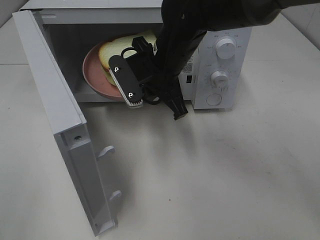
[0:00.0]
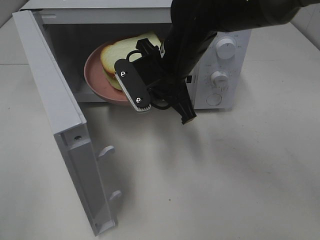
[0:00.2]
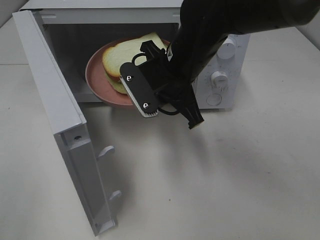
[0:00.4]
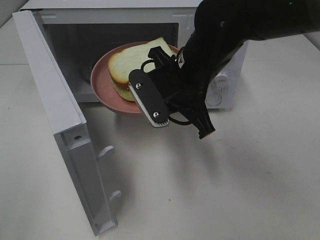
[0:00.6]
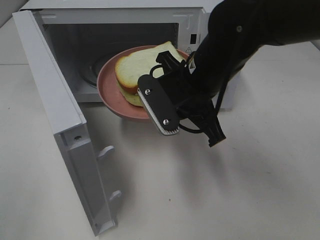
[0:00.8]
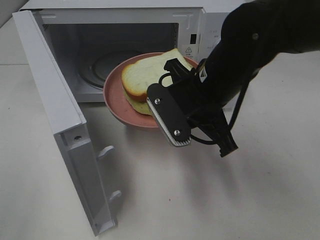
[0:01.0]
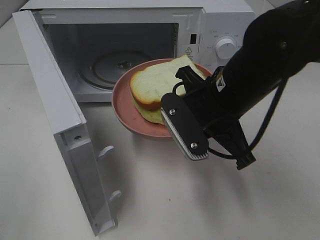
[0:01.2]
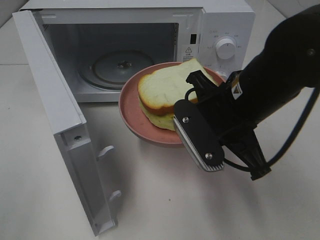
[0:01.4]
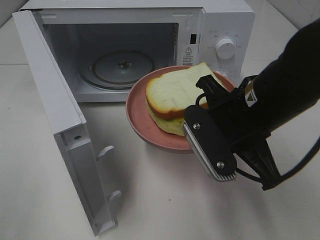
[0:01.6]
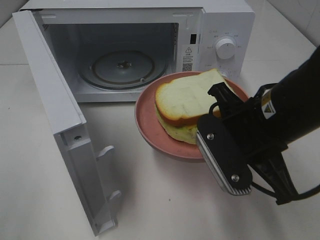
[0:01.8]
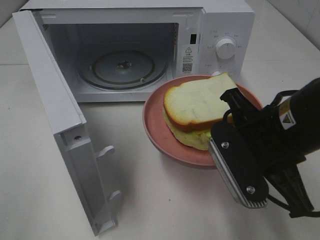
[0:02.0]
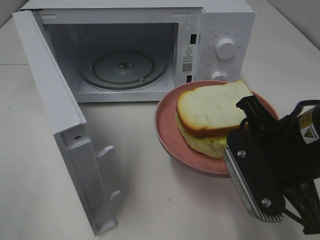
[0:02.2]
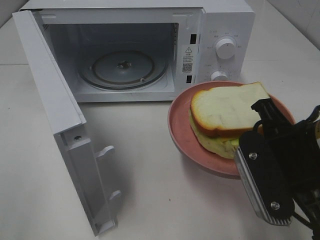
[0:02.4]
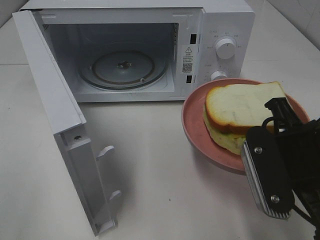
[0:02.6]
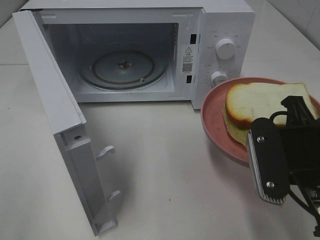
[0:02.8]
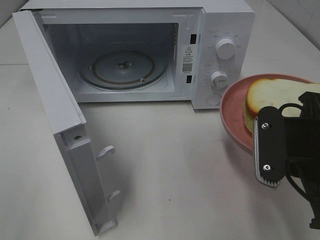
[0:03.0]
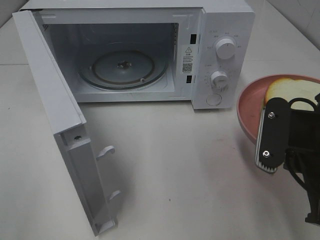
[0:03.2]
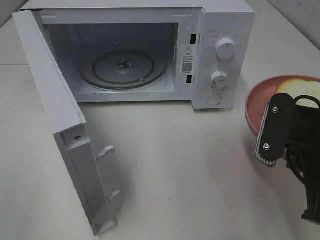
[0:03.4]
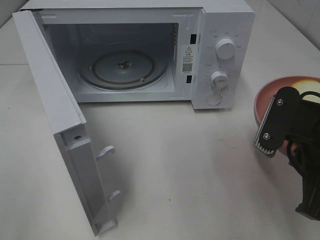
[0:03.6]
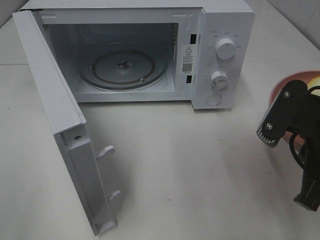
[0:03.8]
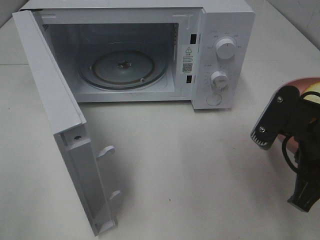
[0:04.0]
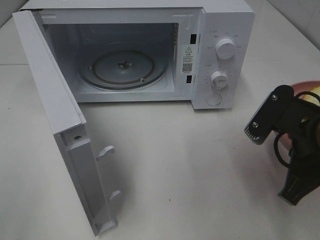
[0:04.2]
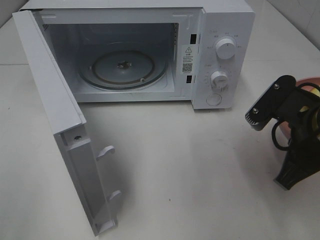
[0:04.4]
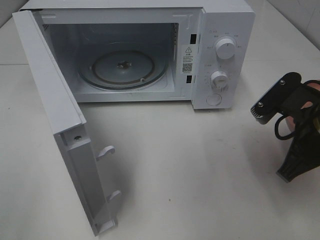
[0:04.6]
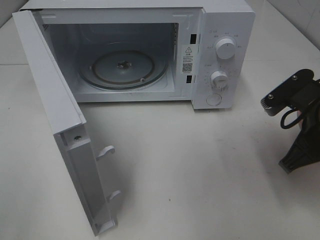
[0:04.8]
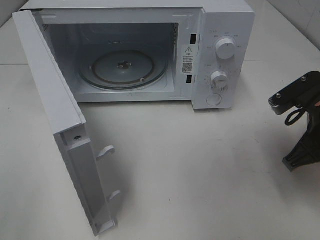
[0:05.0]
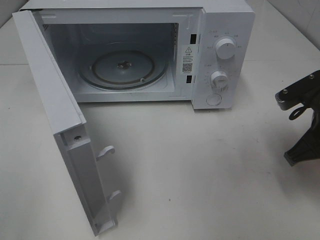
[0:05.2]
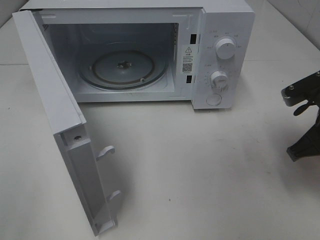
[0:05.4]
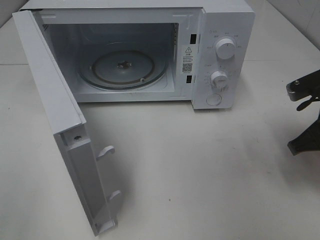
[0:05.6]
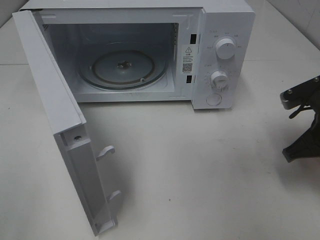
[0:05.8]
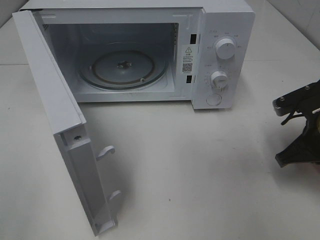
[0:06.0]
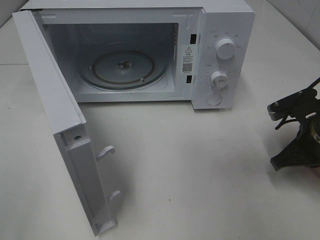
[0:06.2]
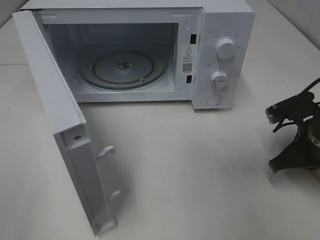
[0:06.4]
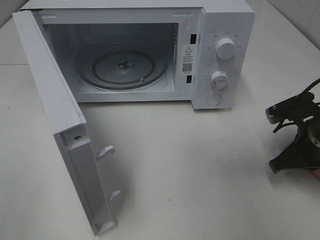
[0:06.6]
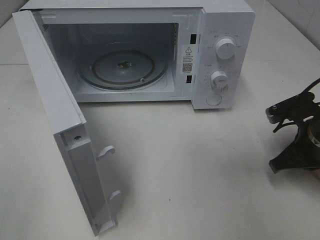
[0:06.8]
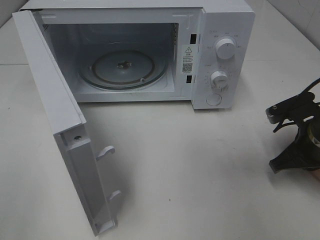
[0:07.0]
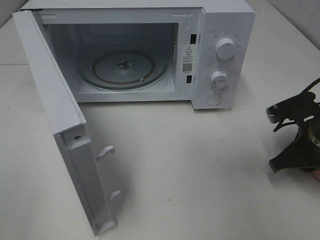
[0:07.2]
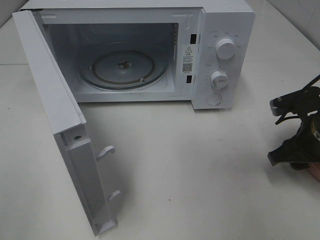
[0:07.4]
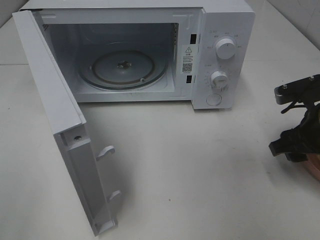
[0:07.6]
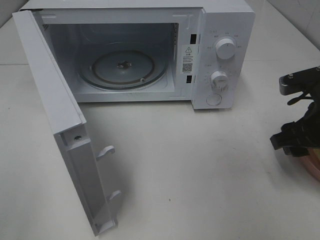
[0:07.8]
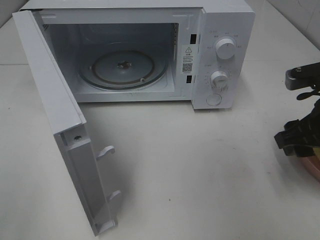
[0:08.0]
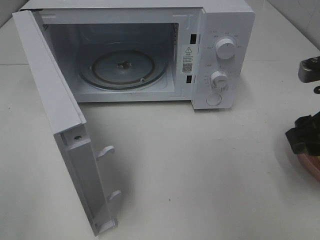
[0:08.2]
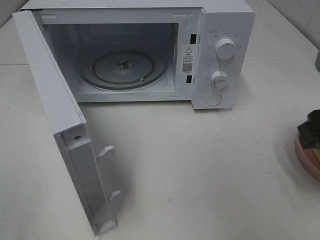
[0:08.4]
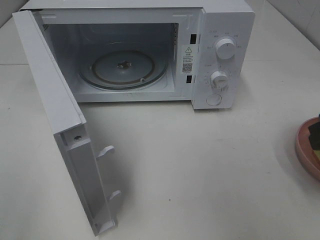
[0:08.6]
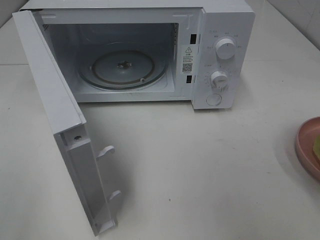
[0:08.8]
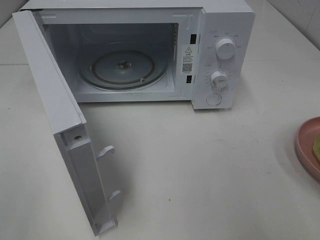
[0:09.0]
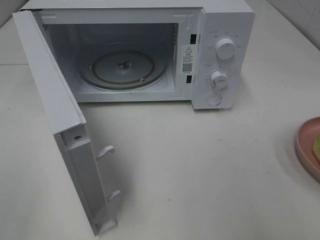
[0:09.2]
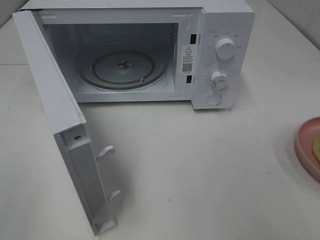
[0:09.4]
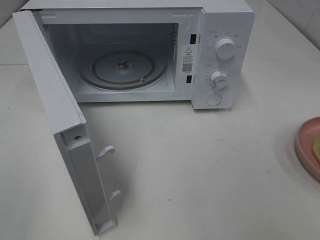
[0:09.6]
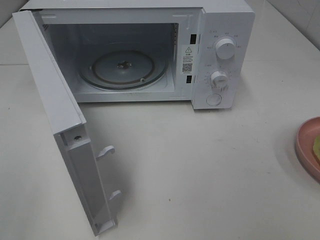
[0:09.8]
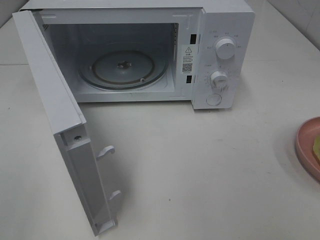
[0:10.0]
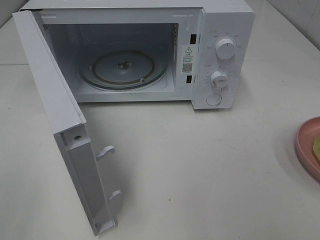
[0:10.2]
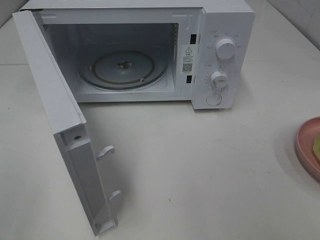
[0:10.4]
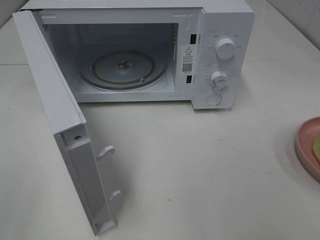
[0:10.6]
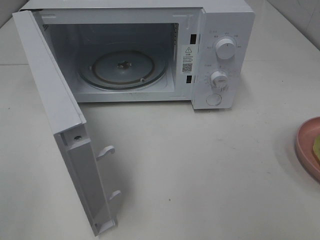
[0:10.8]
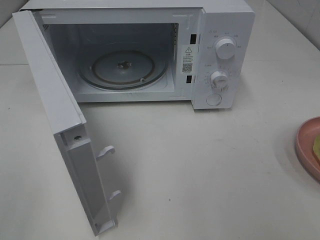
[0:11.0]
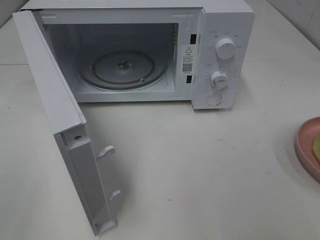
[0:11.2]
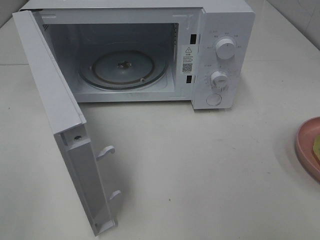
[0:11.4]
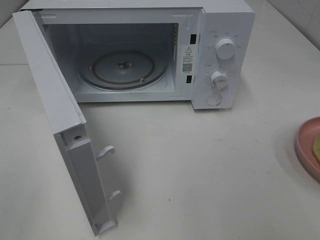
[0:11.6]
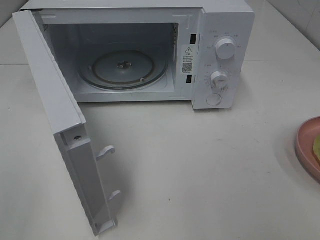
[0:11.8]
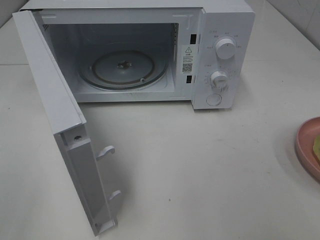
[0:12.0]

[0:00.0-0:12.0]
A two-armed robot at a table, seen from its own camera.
Task of the whole recording: Heat Sandwich.
Step, 0:00.0 to 0:07.4: Right hand: place the plate on the table.
0:00.0 to 0:01.6: The right gripper moves backward and to the right, approximately 15 cm.
0:01.6 to 0:03.0: The right gripper heads to the right and backward, covering roughly 10 cm.
0:04.4 to 0:06.0: The right gripper is displaced to the right, downward and forward by some 10 cm.
0:06.0 to 0:07.6: The right gripper opens up.
0:07.6 to 0:09.0: The right gripper is displaced upward and backward by about 15 cm.
0:10.4 to 0:12.0: Both grippers stay about where they are.

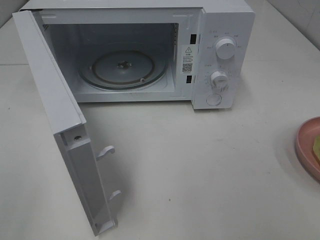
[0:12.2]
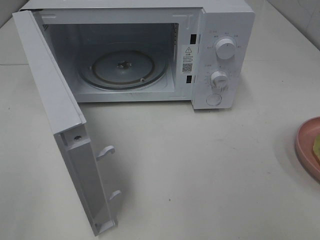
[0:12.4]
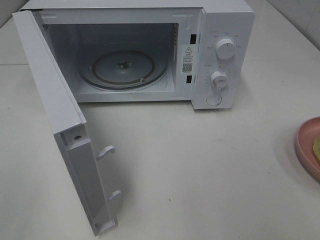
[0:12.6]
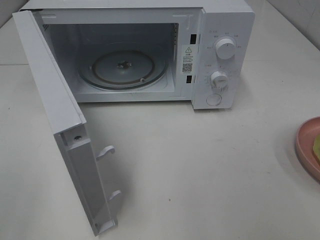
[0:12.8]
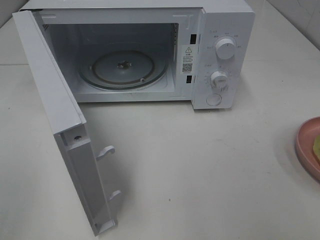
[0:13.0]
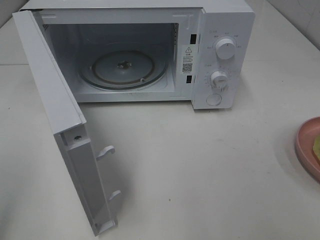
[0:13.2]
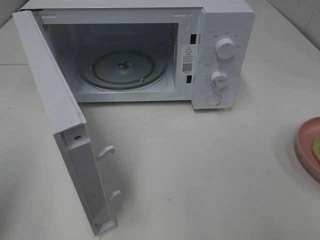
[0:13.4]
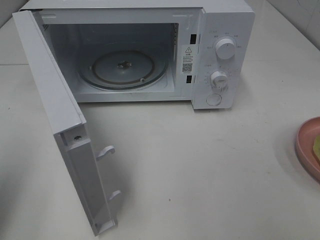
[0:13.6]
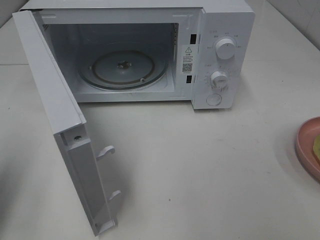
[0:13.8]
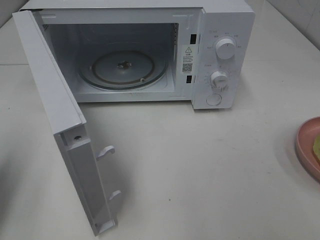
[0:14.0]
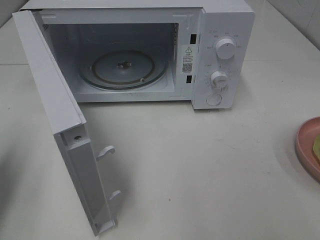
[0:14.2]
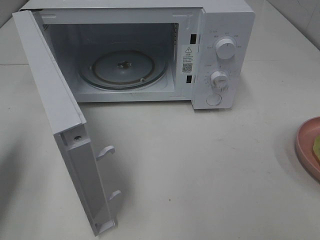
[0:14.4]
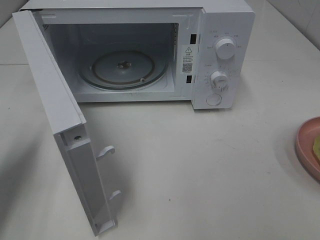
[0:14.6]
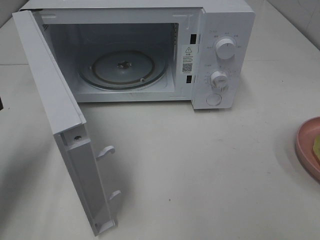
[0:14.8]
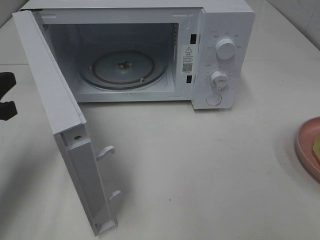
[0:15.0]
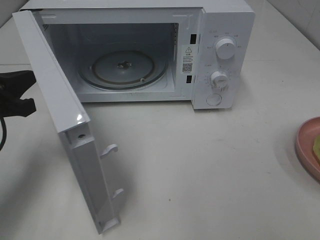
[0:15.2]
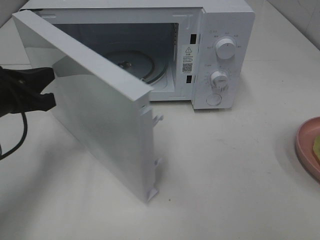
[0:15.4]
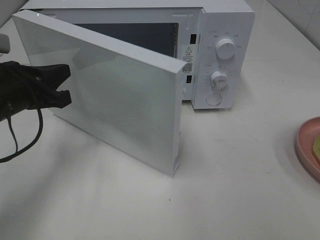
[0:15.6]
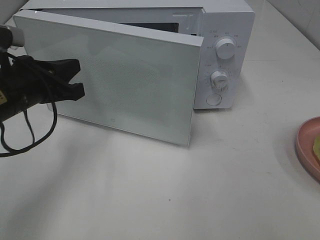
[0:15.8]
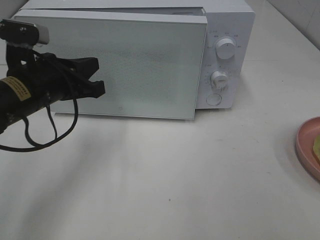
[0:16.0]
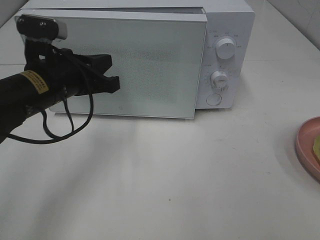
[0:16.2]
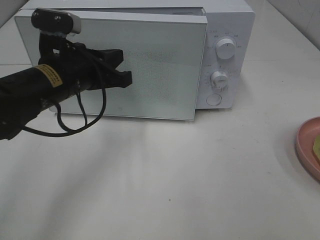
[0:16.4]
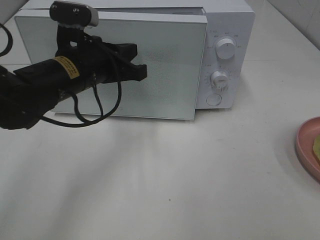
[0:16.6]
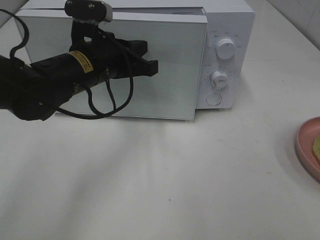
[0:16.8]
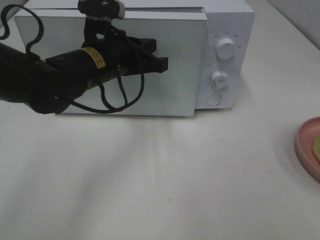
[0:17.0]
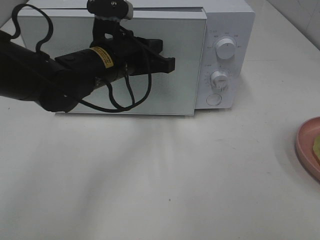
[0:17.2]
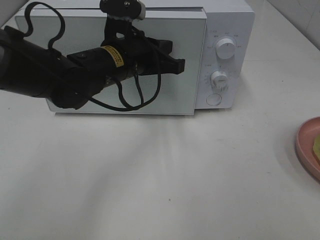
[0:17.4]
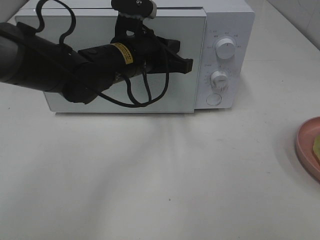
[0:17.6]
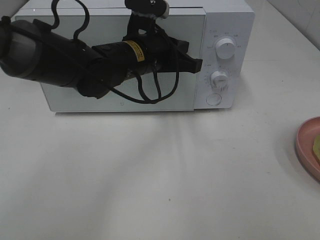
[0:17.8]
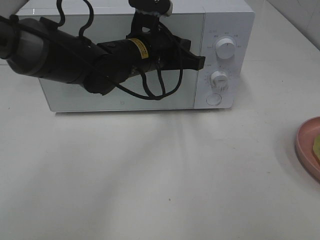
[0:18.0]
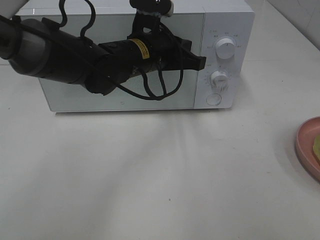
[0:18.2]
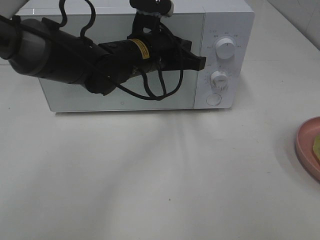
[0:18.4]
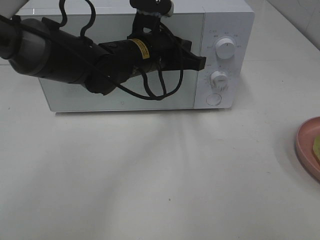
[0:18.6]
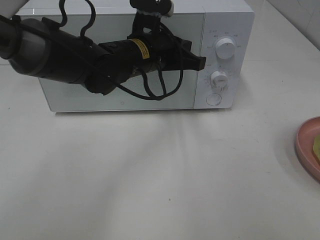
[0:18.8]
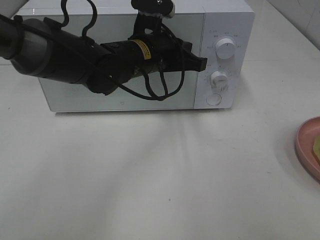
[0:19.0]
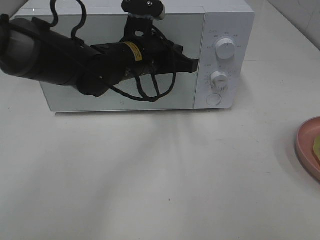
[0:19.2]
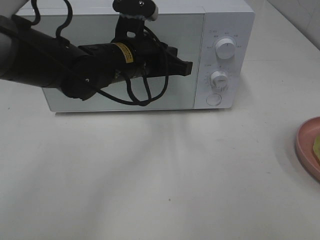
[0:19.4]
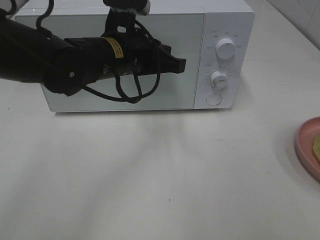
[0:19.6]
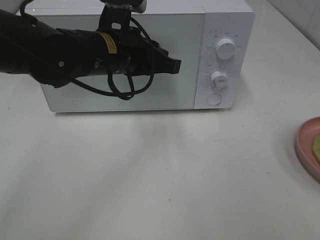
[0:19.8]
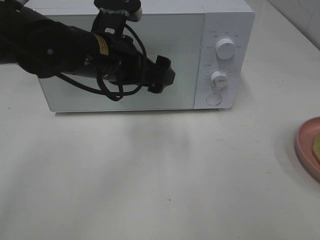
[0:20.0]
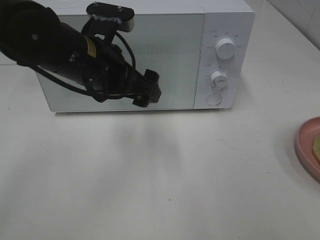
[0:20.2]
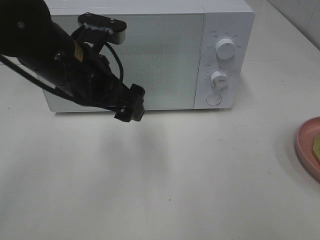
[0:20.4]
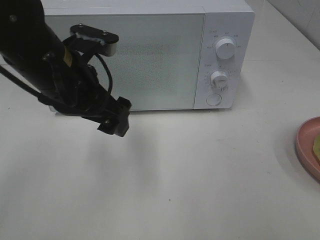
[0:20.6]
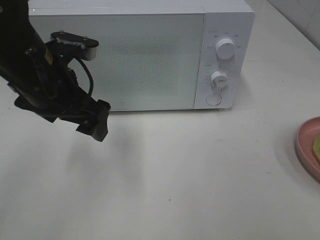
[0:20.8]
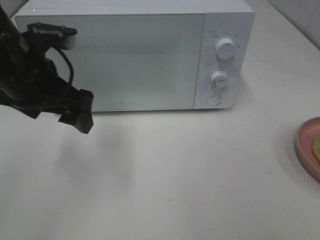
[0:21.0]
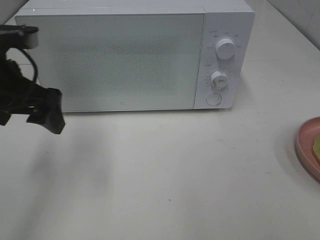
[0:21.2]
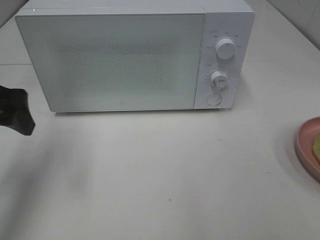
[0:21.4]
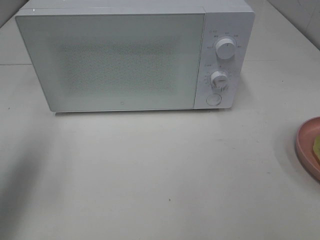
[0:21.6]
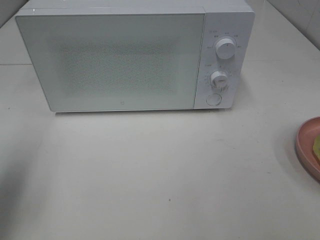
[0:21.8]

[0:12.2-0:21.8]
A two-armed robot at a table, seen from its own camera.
Task of the whole recording: Heat Sandwich.
Step, 0:12.2 to 0:20.6: Left hand: close the microwave door.
0:12.2 to 0:13.8: The left gripper shifts about 15 cm forward, and closes its fingers.
0:13.8 to 0:15.4: The left gripper travels forward, to the right and downward by roughly 15 cm.
0:15.4 to 0:17.0: The left gripper travels to the right and forward by some 15 cm.
0:17.0 to 0:18.6: The left gripper heads to the right, covering roughly 5 cm.
0:18.6 to 0:20.2: The left gripper shifts some 10 cm backward and to the left, and opens up.
0:20.2 to 0:21.8: The left gripper heads to the left and backward, covering about 25 cm.

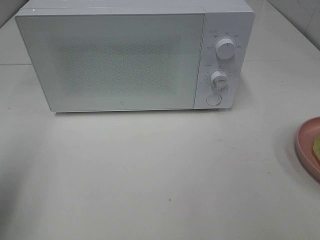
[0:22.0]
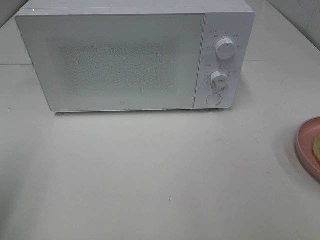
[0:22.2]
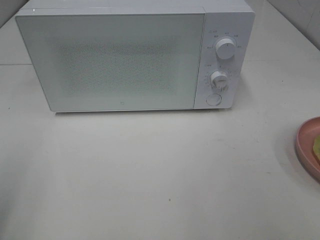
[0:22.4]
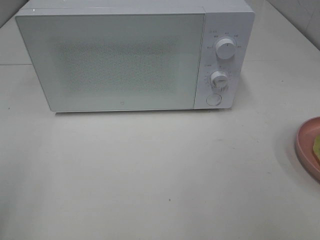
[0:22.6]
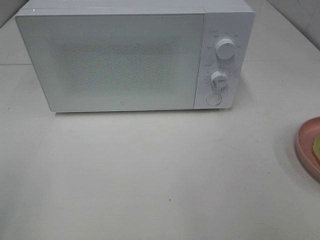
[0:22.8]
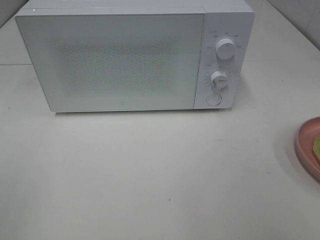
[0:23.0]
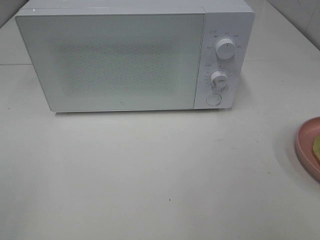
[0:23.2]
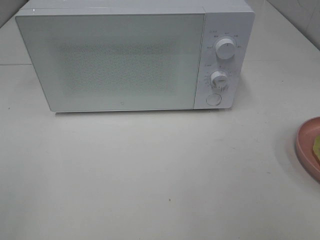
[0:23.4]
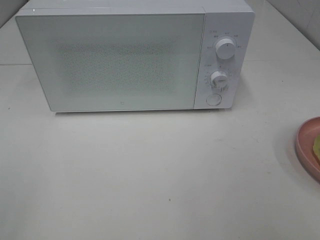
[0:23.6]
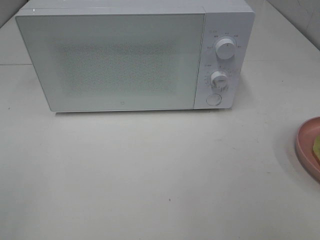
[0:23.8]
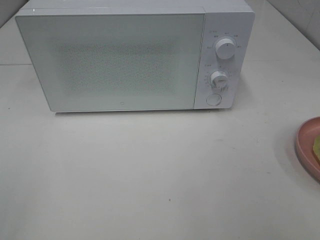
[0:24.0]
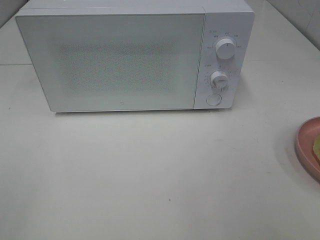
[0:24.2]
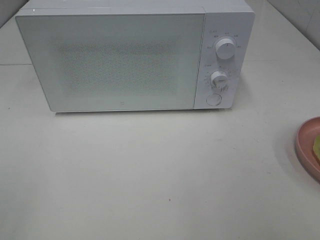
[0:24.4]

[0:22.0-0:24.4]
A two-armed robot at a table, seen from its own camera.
Task of the whole recording: Heat Sandwich.
0:22.0 to 0:23.2: The left gripper shifts roughly 15 cm backward.
0:23.2 to 0:24.4: Neither gripper changes place.
